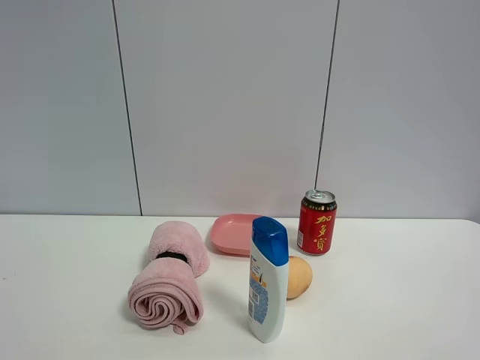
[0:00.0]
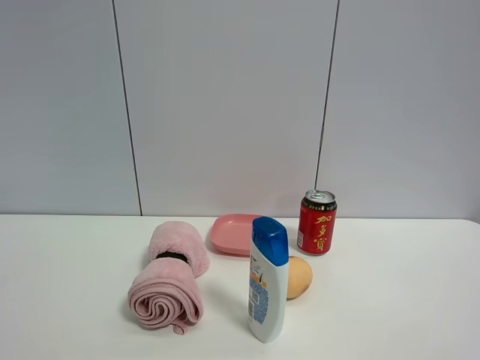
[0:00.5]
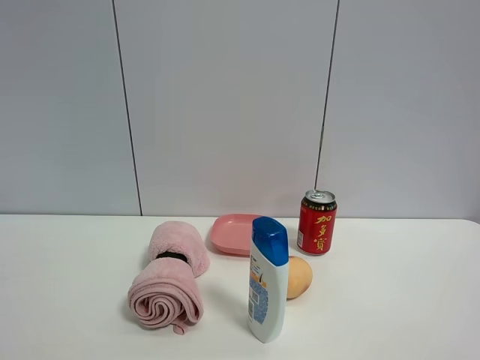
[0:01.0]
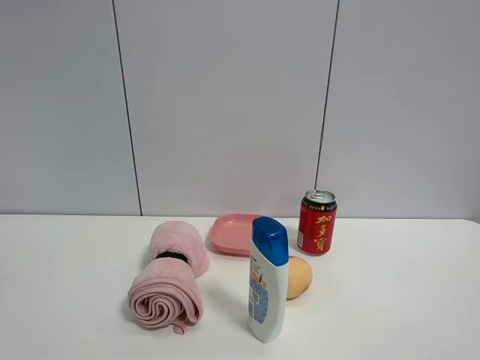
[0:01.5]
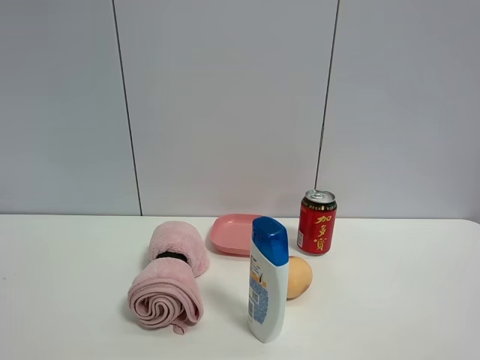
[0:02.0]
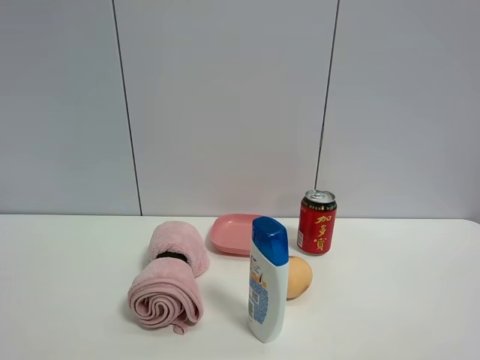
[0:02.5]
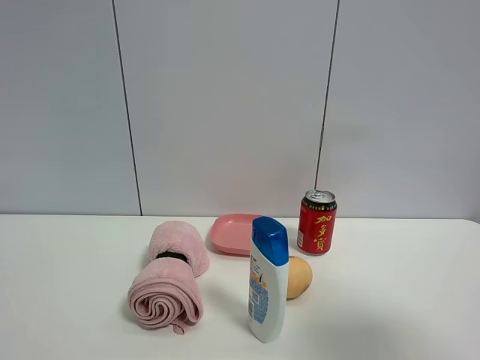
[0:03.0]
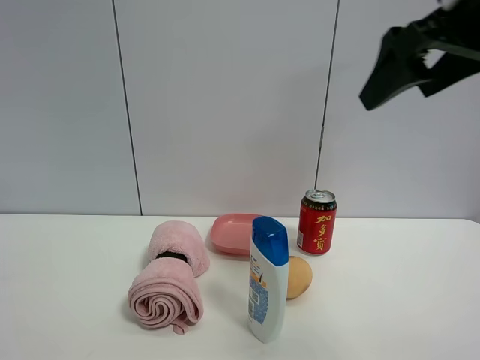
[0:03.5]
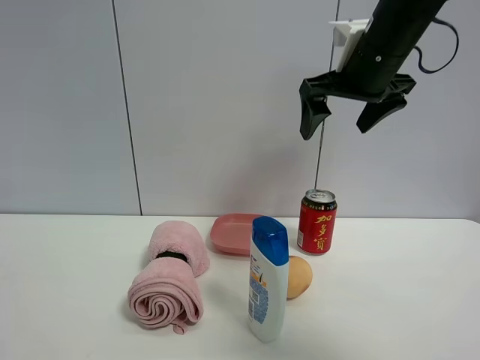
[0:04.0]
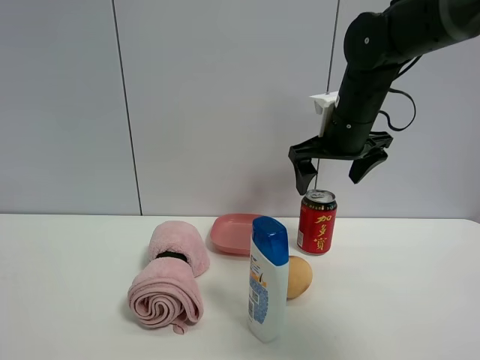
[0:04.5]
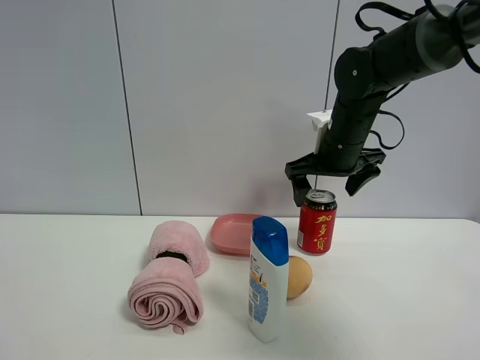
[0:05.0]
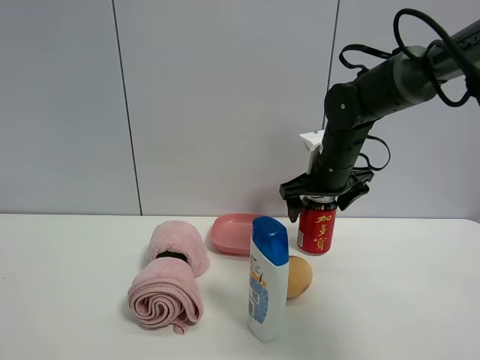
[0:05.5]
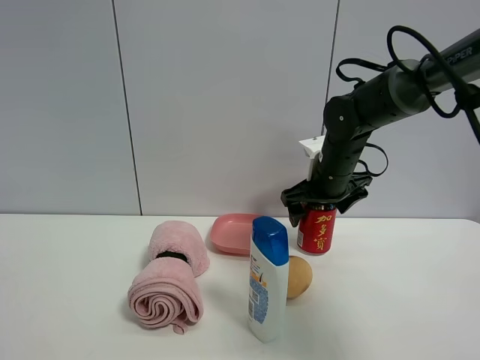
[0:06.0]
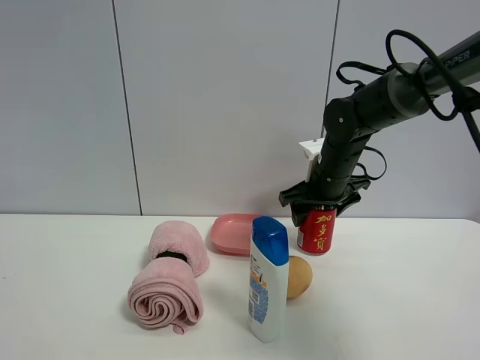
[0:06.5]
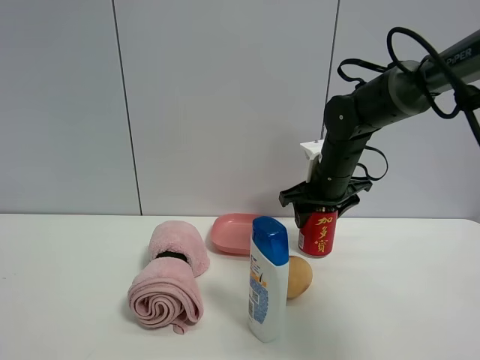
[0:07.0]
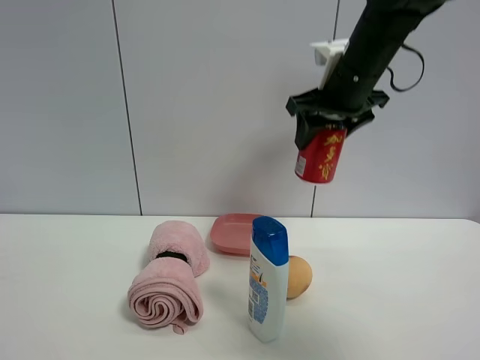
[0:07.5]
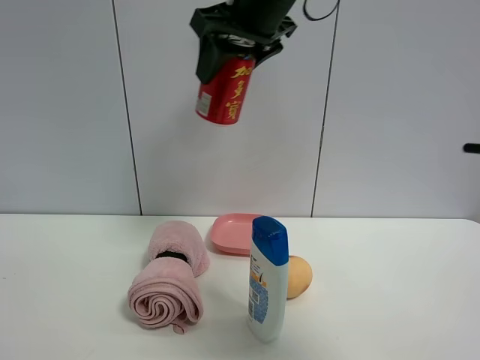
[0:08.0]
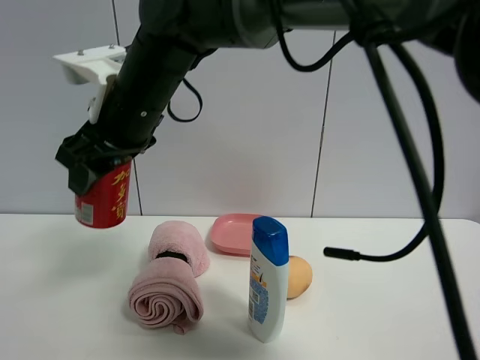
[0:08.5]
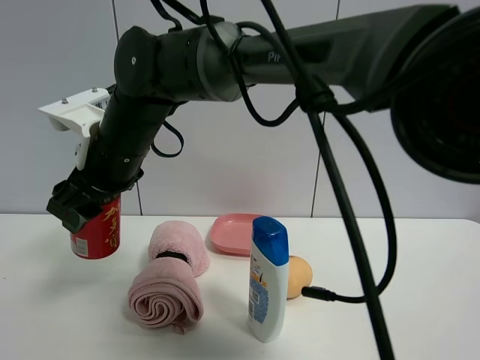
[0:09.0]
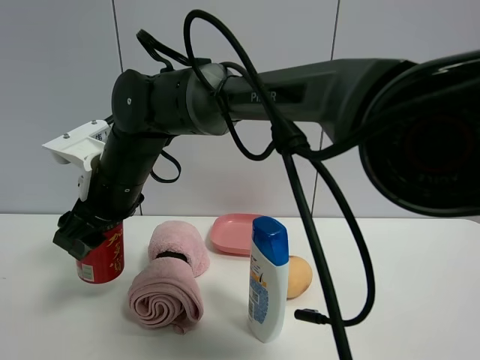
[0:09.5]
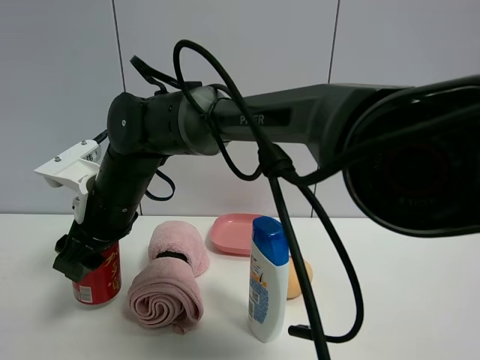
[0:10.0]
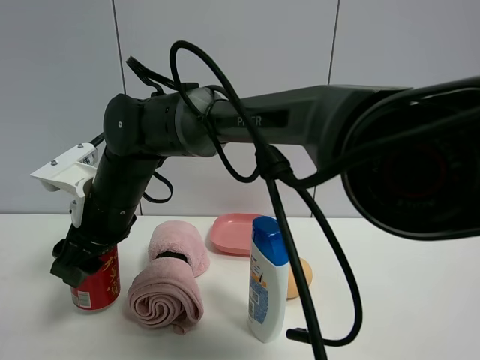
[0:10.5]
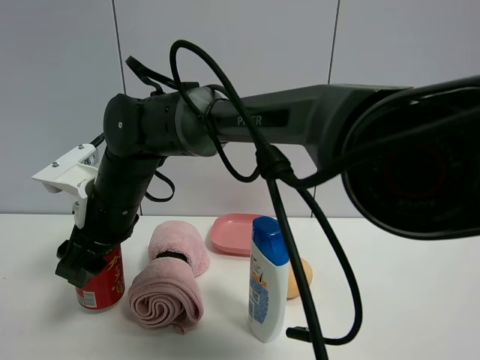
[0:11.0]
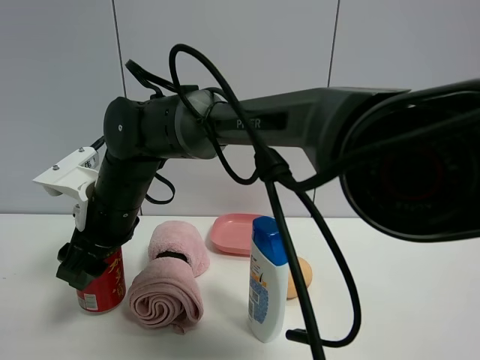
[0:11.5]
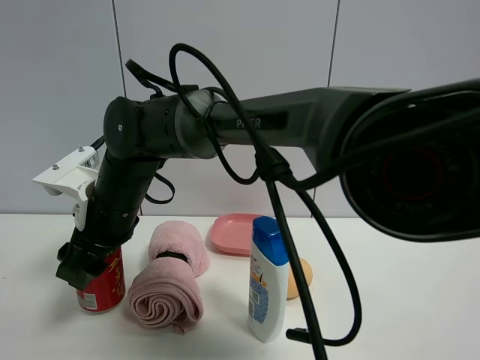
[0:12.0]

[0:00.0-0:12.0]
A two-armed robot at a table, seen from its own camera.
Task of the whole recording: the gripper move the object.
Step, 0:00.0 to 0:06.5: Grasp the Jia Duo Bao with the right gripper.
0:00.0 to 0:02.0: Neither gripper changes place.
0:02.0 to 0:04.0: The right gripper is displaced forward by some 40 cm.
0:04.0 to 0:06.0: The right gripper goes roughly 15 cm downward and forward.
0:06.0 to 0:08.0: The right gripper shifts some 25 cm upward and to the left, and closes up.
0:08.0 to 0:10.0: The right gripper shifts some 30 cm downward and to the left.
0:10.0 to 0:12.0: Both grippers stay about where they are.

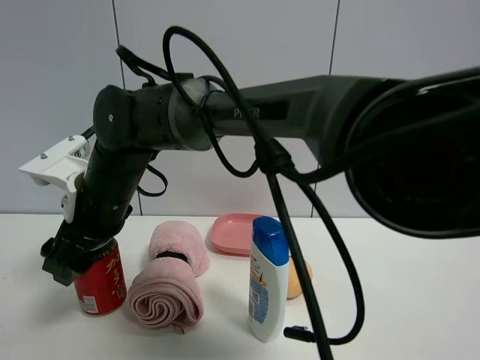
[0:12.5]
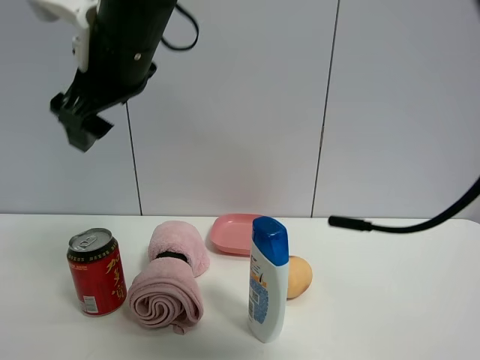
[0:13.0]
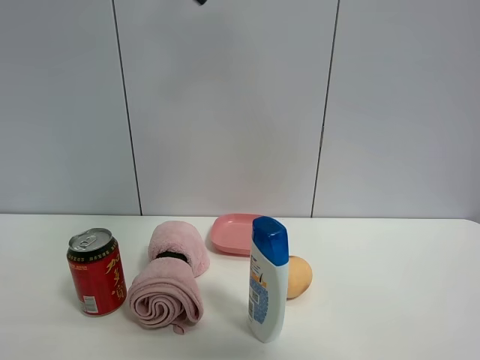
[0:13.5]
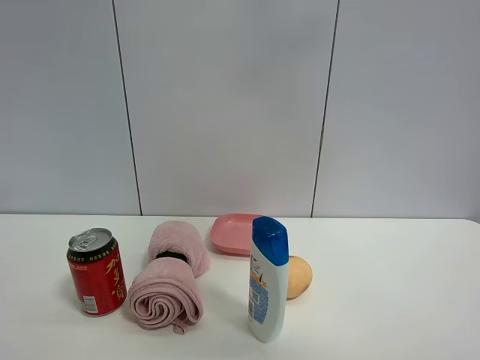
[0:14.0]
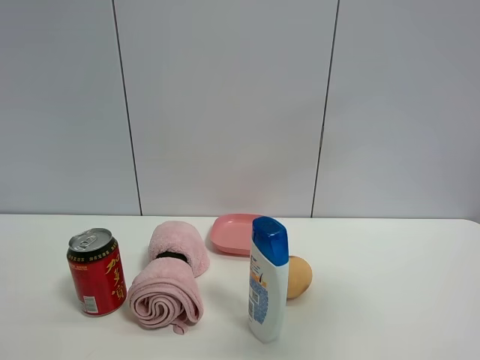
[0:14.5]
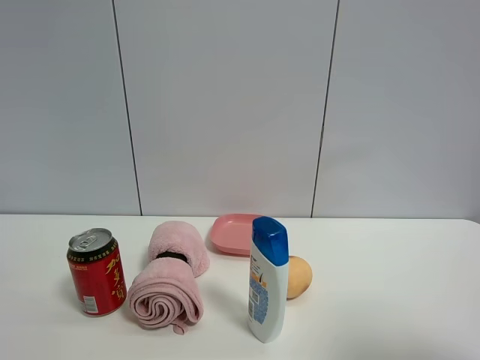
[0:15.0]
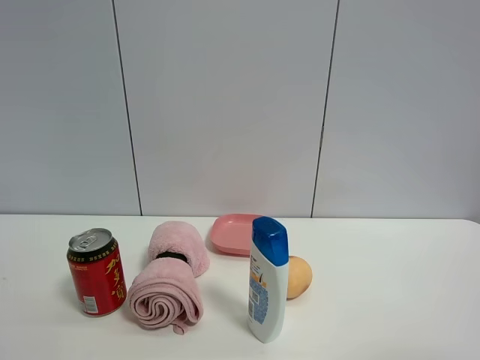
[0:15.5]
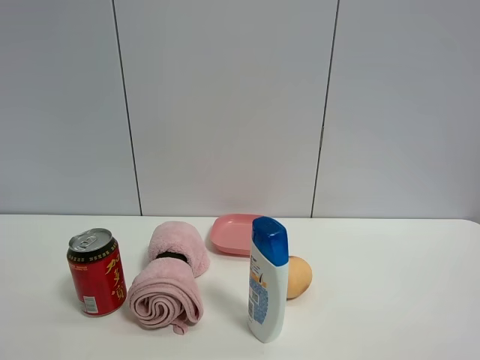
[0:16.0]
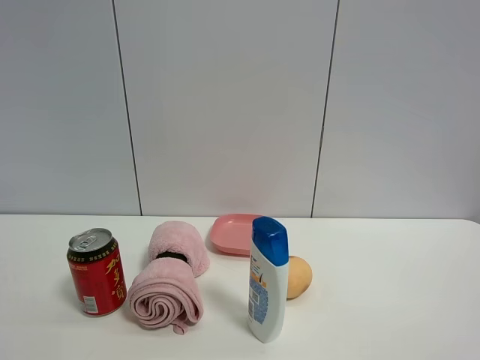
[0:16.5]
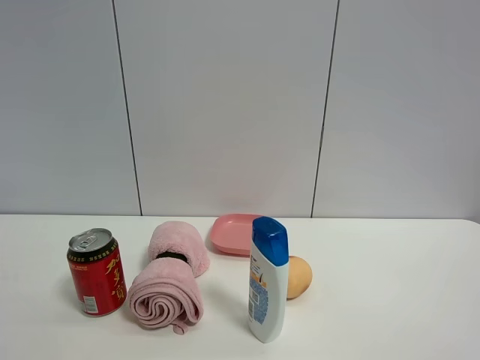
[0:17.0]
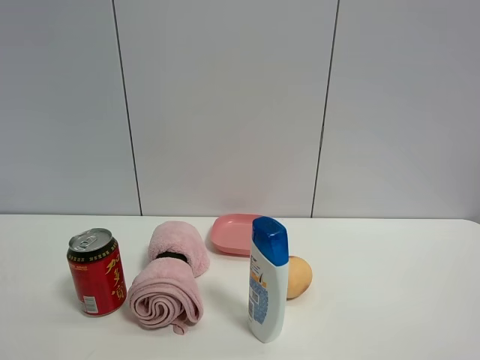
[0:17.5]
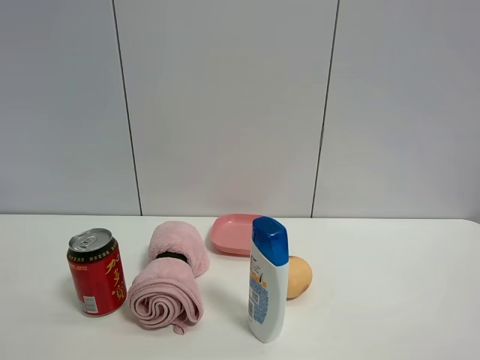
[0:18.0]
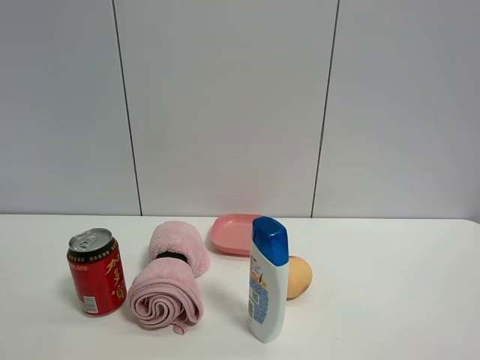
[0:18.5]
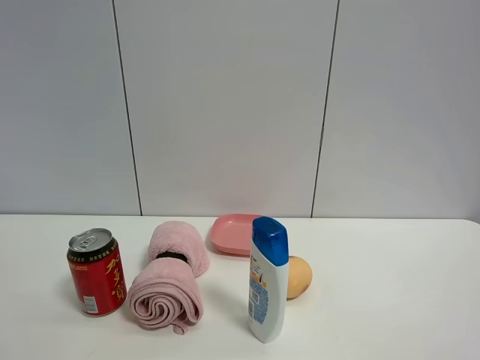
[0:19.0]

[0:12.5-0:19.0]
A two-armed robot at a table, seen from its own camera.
Task of the whole recording: the gripper move the object.
0:12.5 to 0:14.5: The right gripper is displaced to the right, upward and backward by about 50 cm, and opens up.
0:14.5 to 0:17.0: The right gripper heads backward and downward, covering approximately 15 cm.
0:17.0 to 0:19.0: Neither gripper changes place.

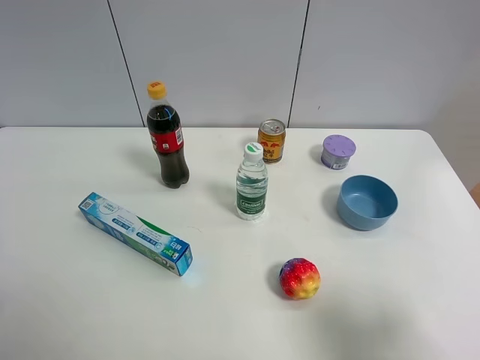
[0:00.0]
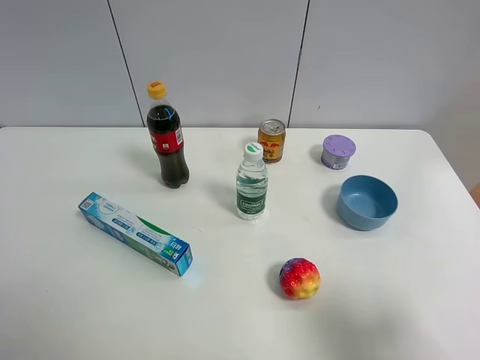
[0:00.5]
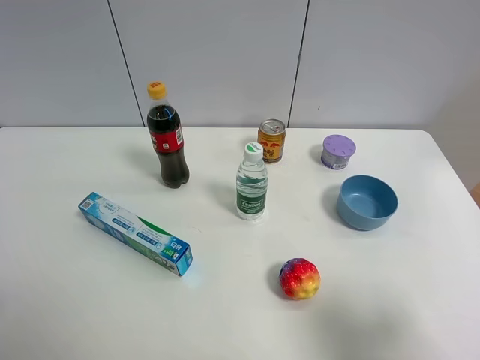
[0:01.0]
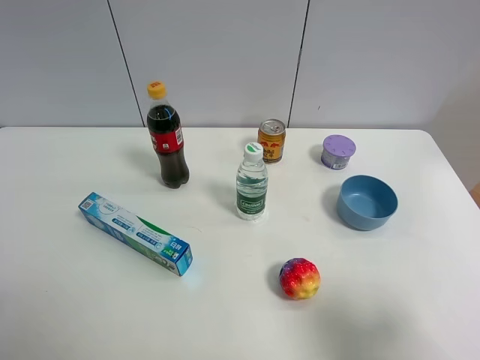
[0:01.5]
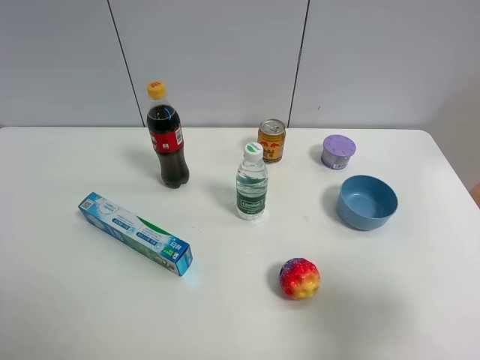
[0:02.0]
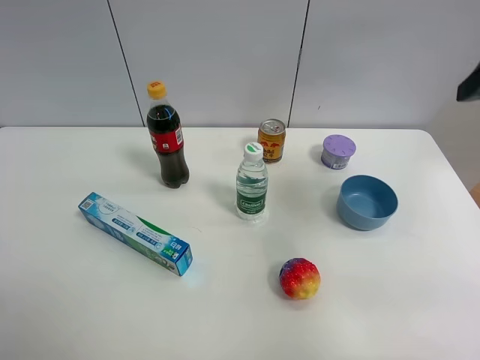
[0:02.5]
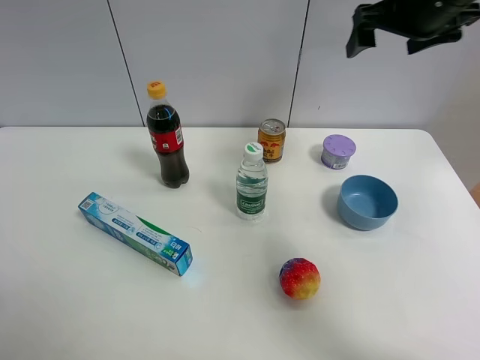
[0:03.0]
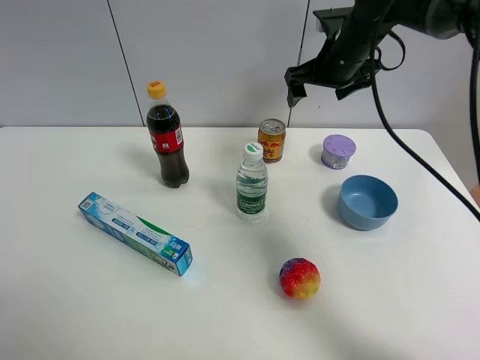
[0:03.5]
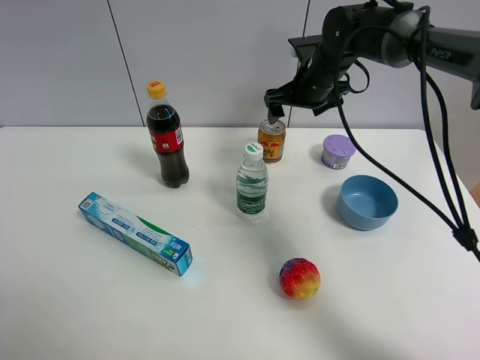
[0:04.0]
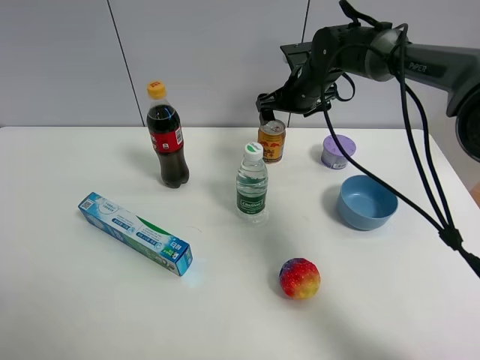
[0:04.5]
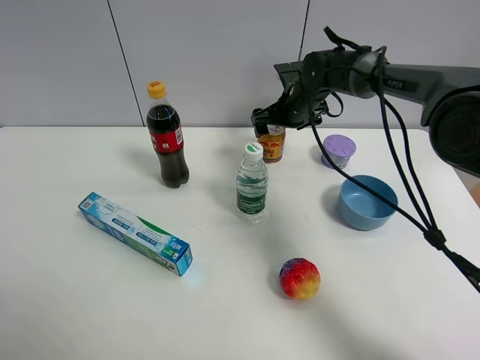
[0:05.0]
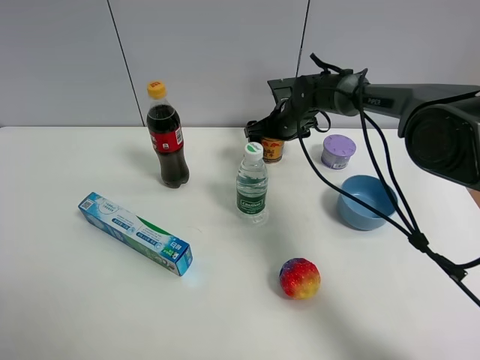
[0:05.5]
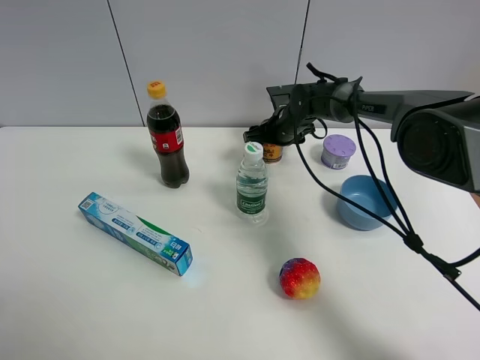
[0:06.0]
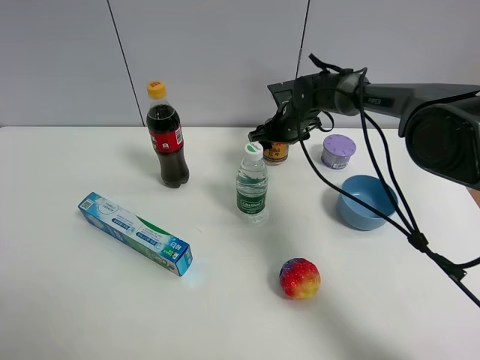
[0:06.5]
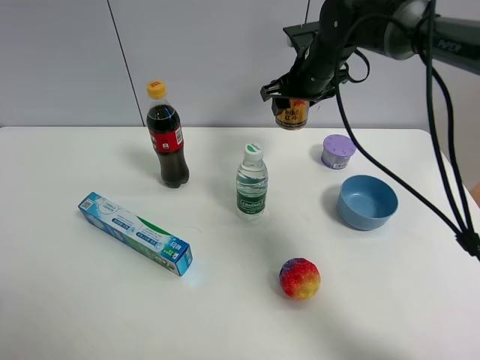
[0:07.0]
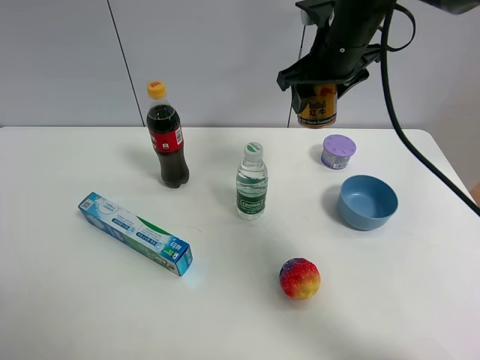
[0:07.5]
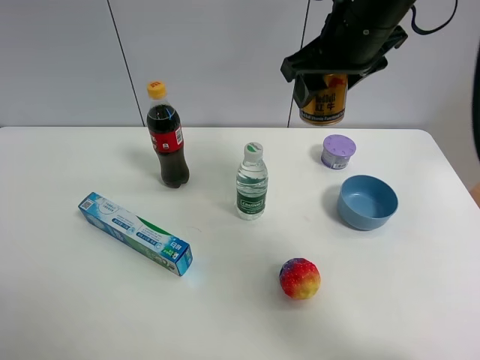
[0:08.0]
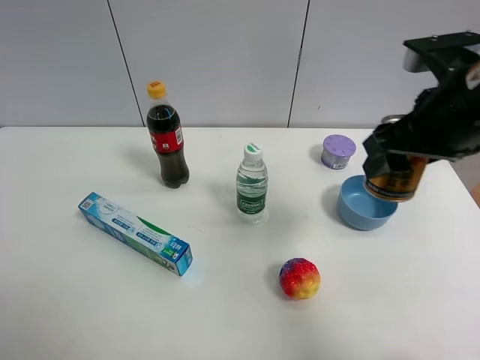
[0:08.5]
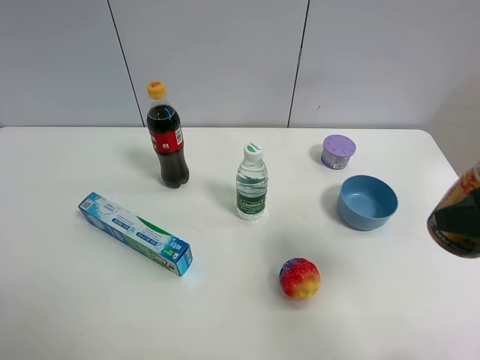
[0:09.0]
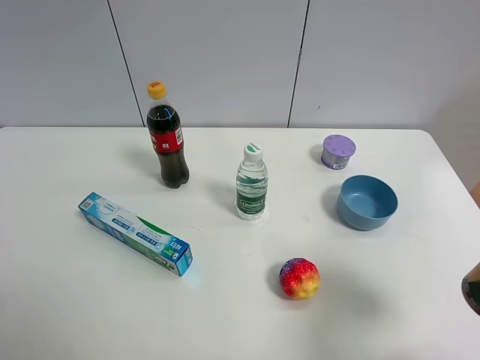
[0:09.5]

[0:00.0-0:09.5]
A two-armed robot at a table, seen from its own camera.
Task of the whole recording: the gripper move the object.
Step, 0:00.0 to 0:06.0: Grasp the red bull with the right gripper.
0:02.0 to 0:04.0: The right gripper is displaced forward by approximately 40 cm.
0:04.0 to 0:05.5: The right gripper shifts about 10 cm downward.
0:05.5 to 0:07.5: The right gripper heads upward and backward, covering about 20 cm, and closes its fingers.
0:07.5 to 0:09.5: The right gripper moves backward and to the right, about 35 cm.
